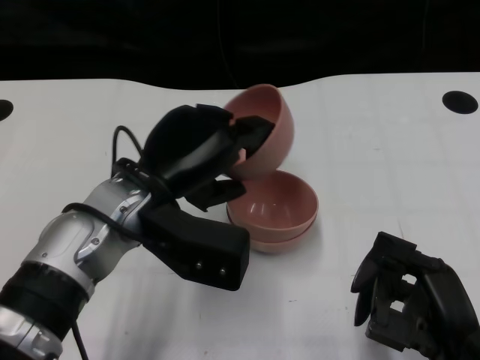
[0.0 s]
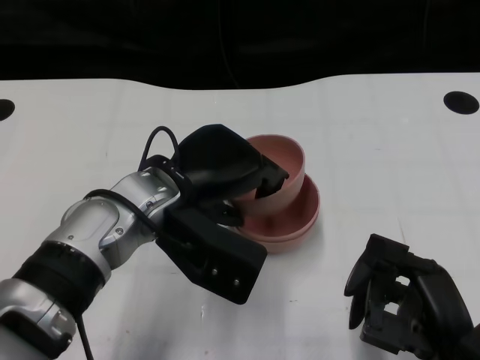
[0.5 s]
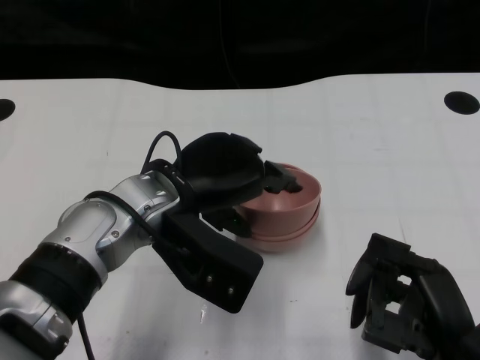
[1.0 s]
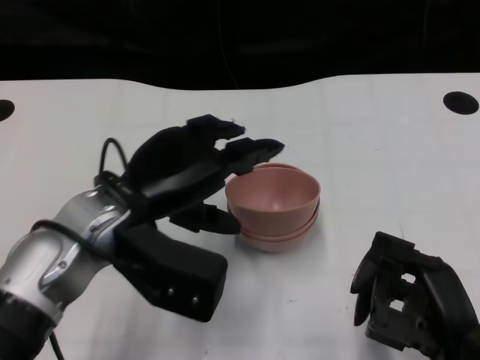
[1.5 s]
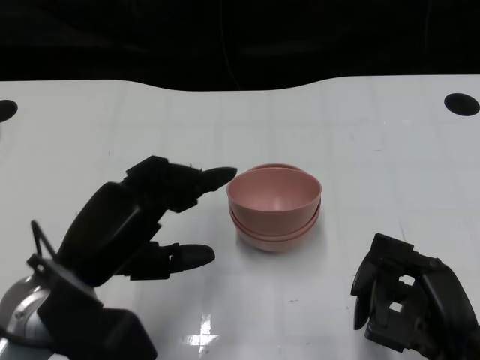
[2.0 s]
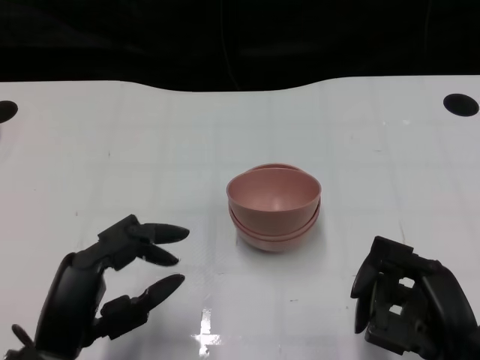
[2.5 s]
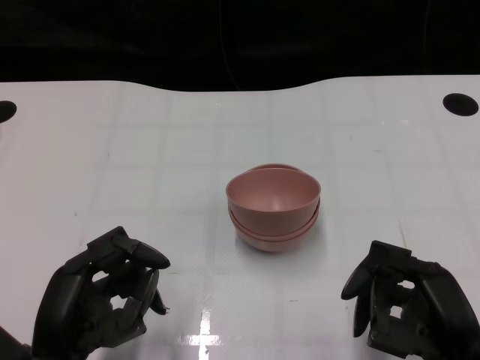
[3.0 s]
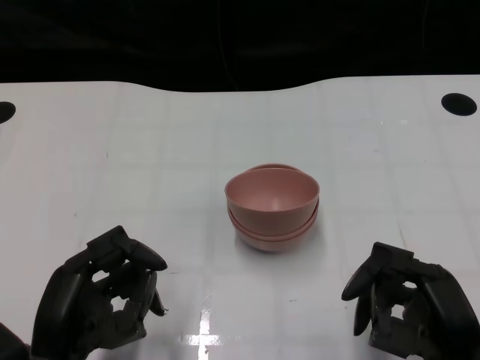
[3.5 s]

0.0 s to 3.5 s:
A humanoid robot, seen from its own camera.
Task of the whole recording: Pick up the bowl on one side of the table and place it on top of the middle bowl, then pick up the bowl on the other side of the table and place it on top of the middle bowls.
Step, 0.0 to 1.5 s: Place the bowl on the left onto the bowl in the middle with left gripper.
0.0 to 2.0 s: The left hand moves to the left and backward, roughly 10 cm.
2.0 to 3.5 s: The left hand heads downward and backward, covering some 10 cm.

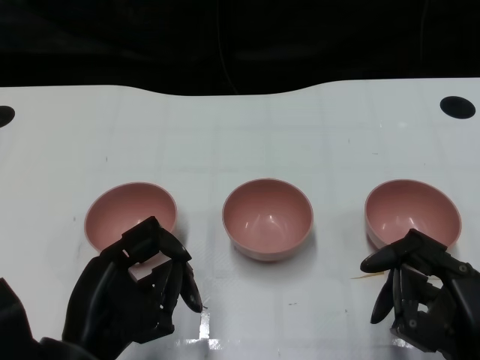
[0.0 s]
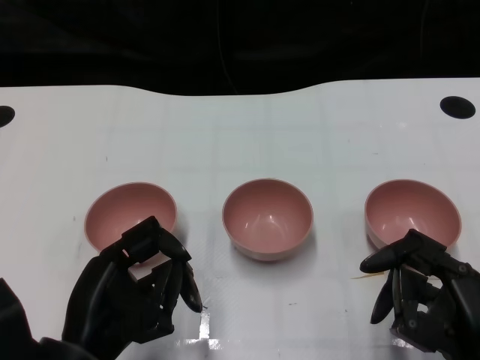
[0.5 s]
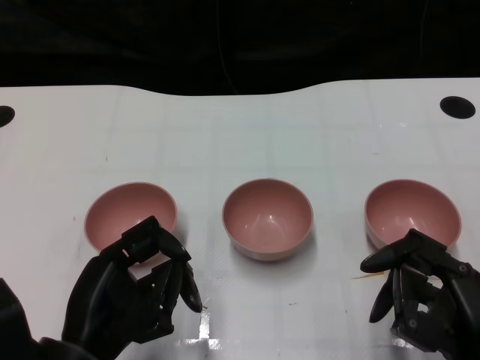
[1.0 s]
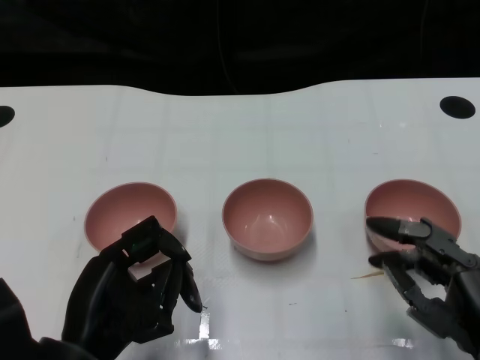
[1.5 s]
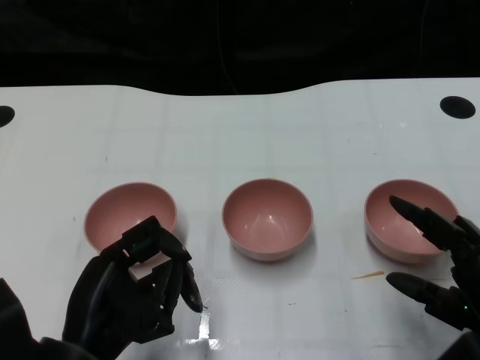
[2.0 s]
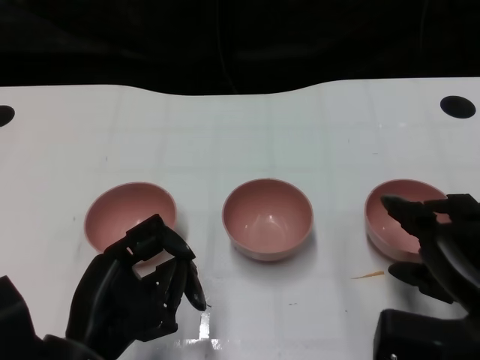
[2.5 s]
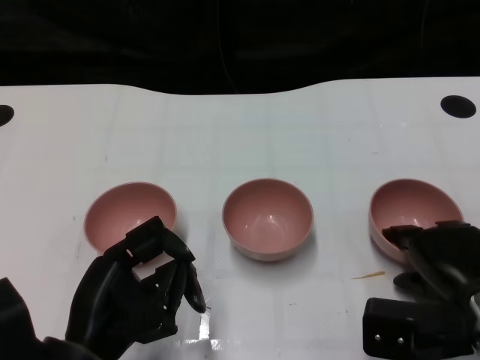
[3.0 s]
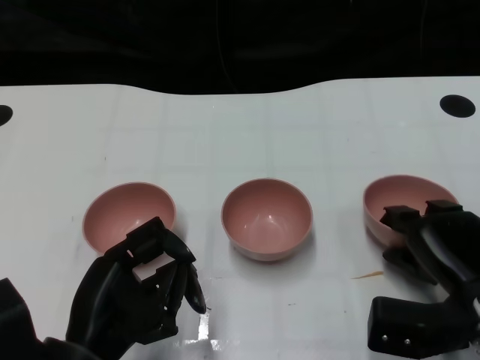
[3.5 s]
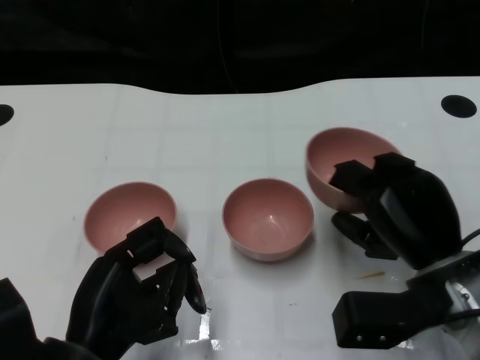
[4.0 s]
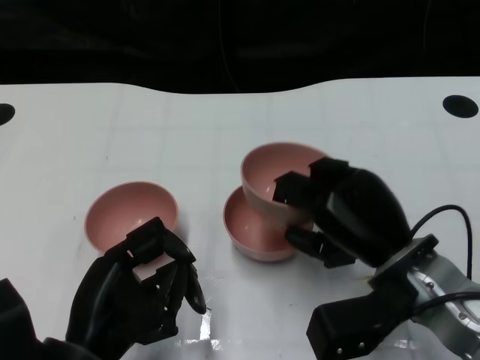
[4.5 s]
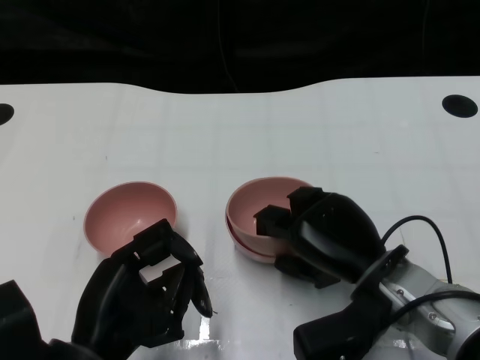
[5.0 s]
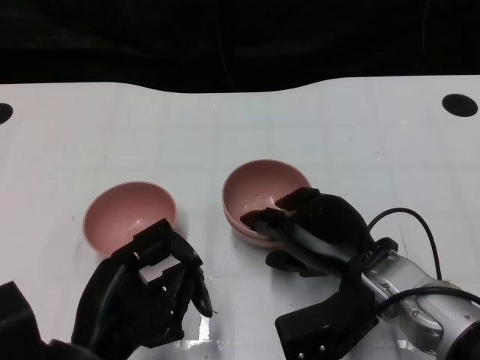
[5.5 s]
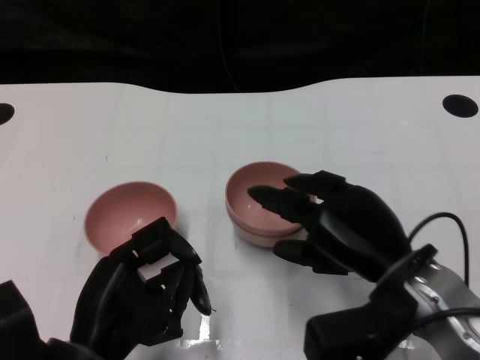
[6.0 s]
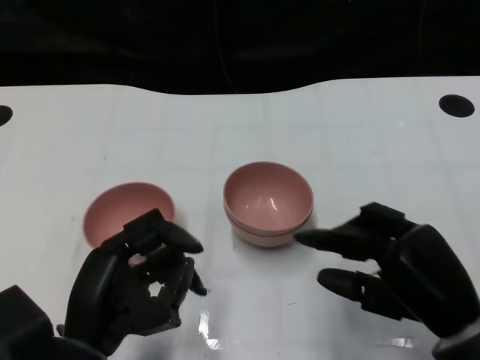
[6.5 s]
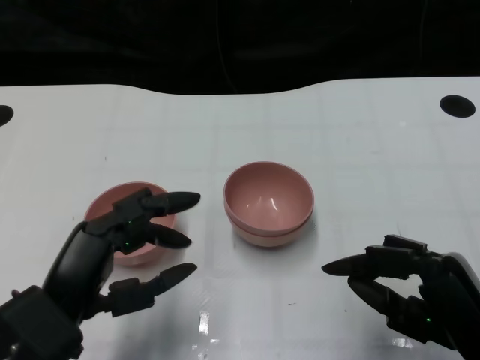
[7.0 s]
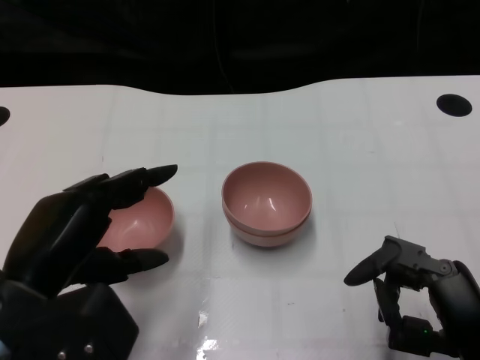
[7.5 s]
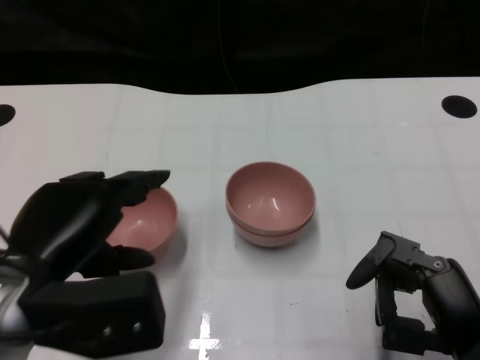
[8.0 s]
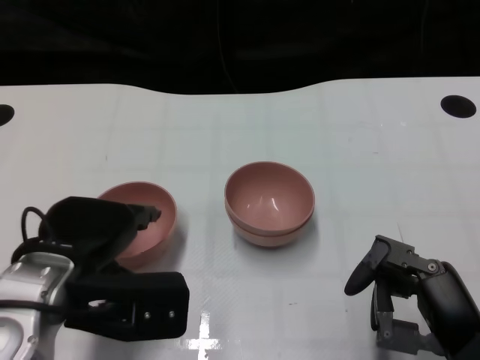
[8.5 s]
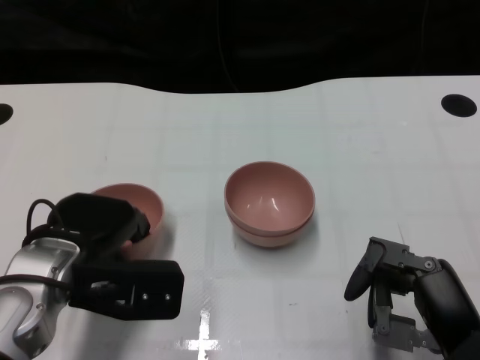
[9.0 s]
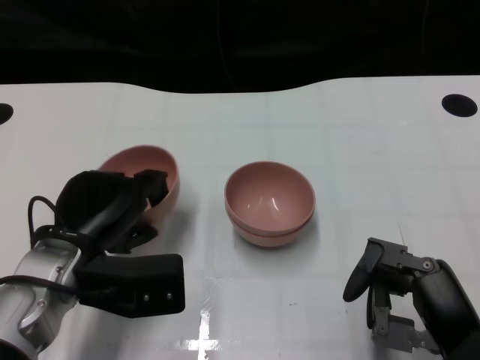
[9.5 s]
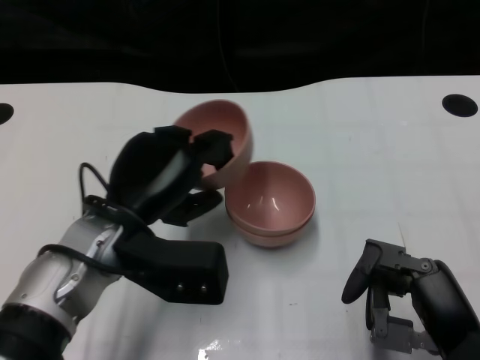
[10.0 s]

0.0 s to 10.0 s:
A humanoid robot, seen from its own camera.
Task of the whole recording: Pick up the bowl on one side of the table and place it on top of the middle bowl, then pick up the bowl on the other side of the table and place it on top of the middle bowls.
Step, 1.5 to 3.0 s: Grasp the bowl on the right with the right gripper.
Step, 4.0 to 6.0 s: Place the bowl on the right onto the bowl in the middle with right gripper.
Step, 6.5 to 9.0 s: Grasp the bowl on the left with the left gripper.
2.0 to 4.0 s: The right hand travels forward and to the left by roughly 10 cm.
6.0 to 8.0 s: The right hand shifts some 10 cm backward and to the right. Meanwhile the left hand travels upward by approximately 10 cm.
8.0 to 10.0 s: The left hand shifts some 10 cm forward and to the right.

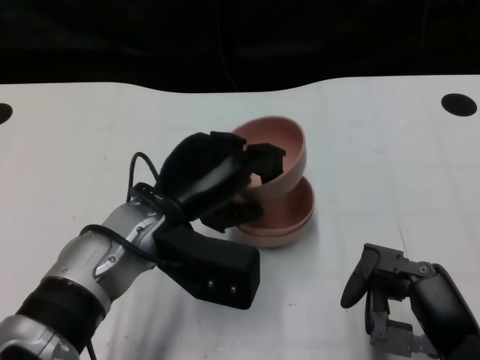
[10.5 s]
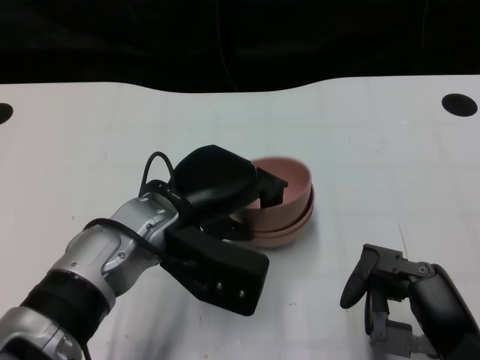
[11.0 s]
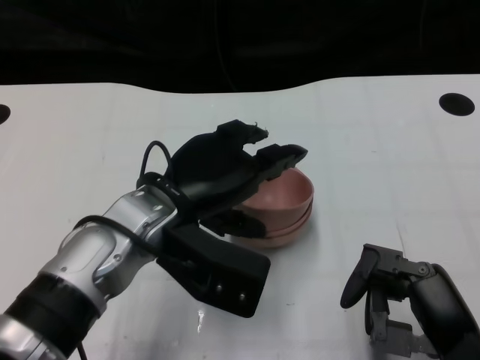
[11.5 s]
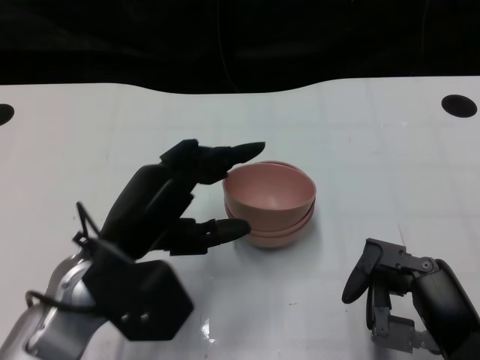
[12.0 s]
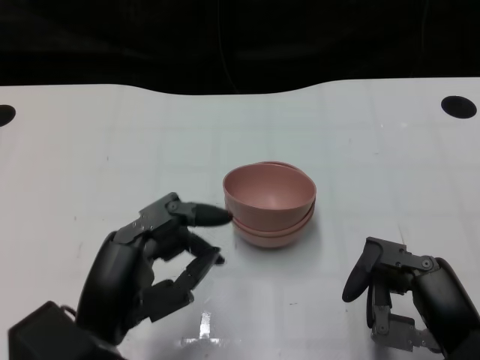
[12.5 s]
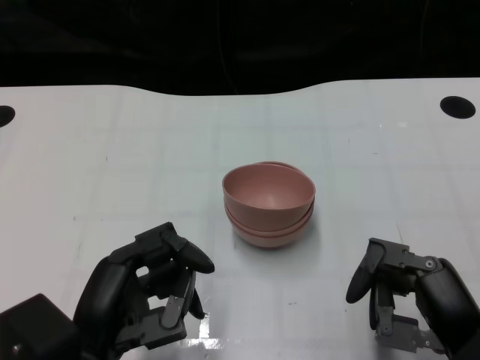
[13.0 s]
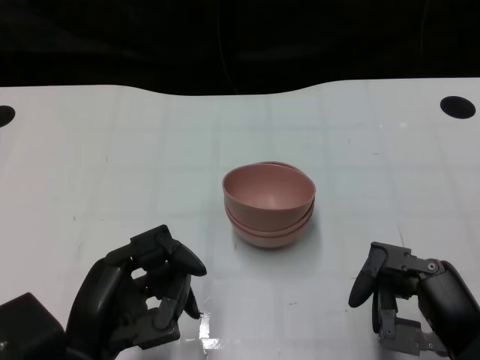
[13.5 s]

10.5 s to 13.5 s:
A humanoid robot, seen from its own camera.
Task of the whole recording: Pick up the bowl on one side of the table and place it on top of the middle bowl, then pick up the bowl on the other side of the table and place it on top of the middle bowls.
10.5 to 12.0 s: The left hand moves roughly 5 cm.
12.0 to 13.5 s: The left hand is displaced backward by approximately 10 cm.

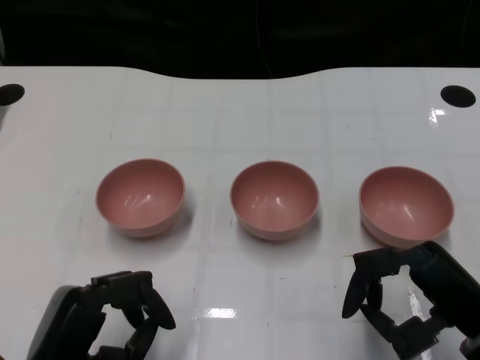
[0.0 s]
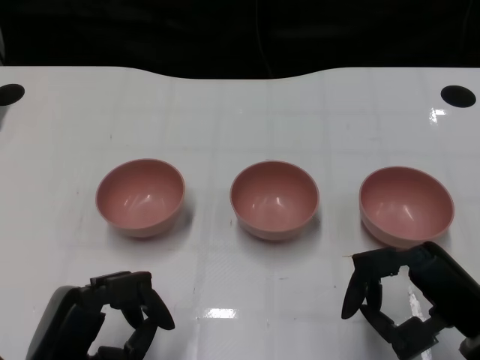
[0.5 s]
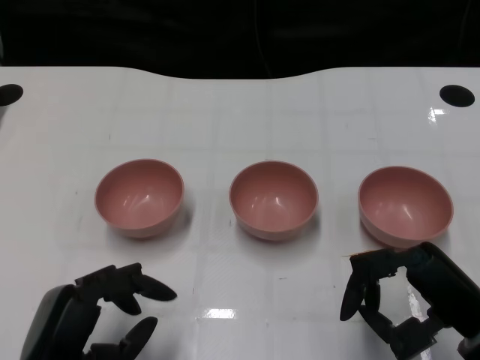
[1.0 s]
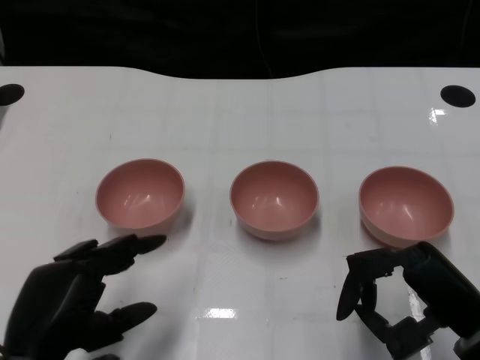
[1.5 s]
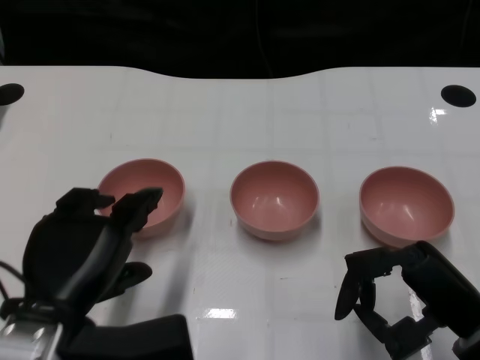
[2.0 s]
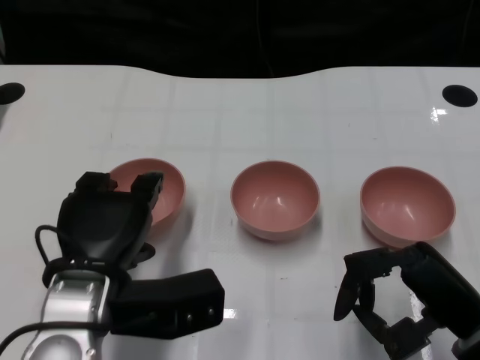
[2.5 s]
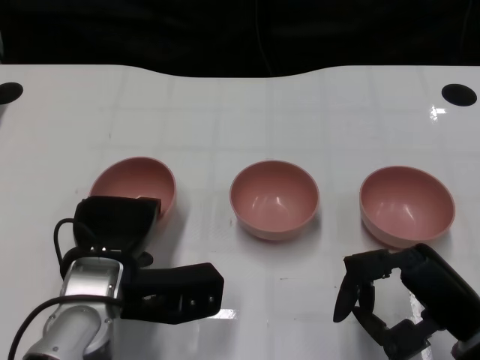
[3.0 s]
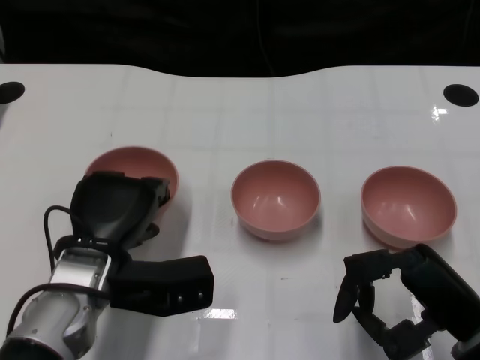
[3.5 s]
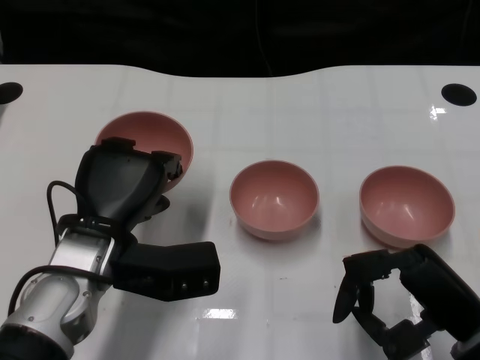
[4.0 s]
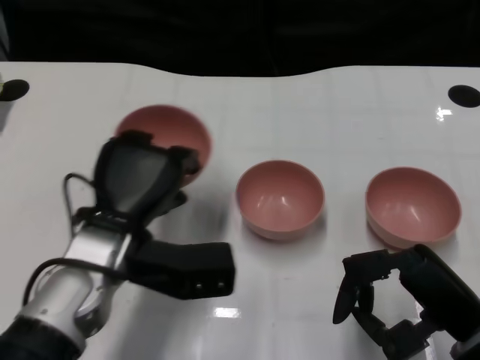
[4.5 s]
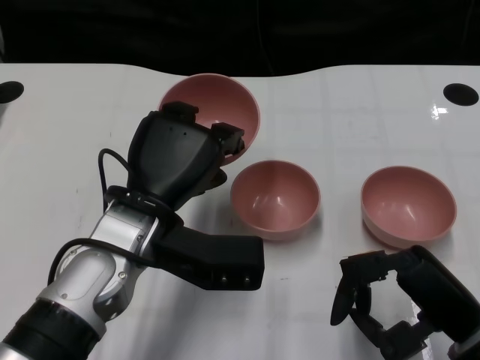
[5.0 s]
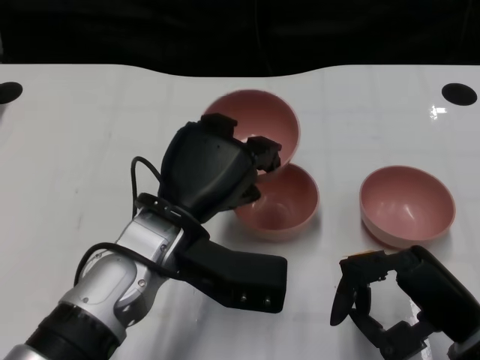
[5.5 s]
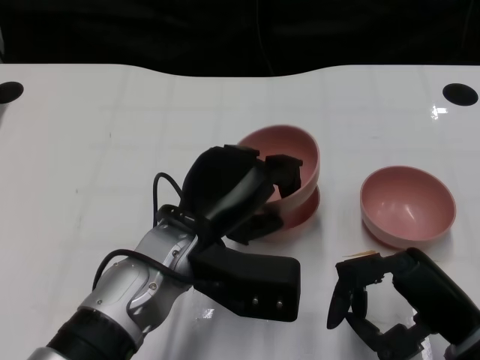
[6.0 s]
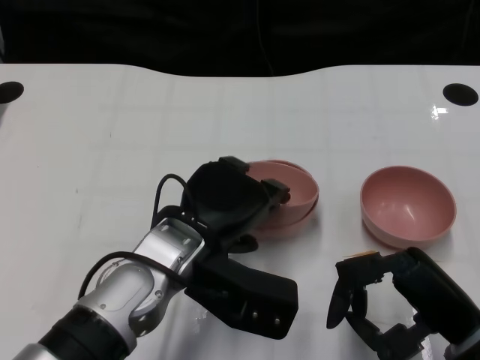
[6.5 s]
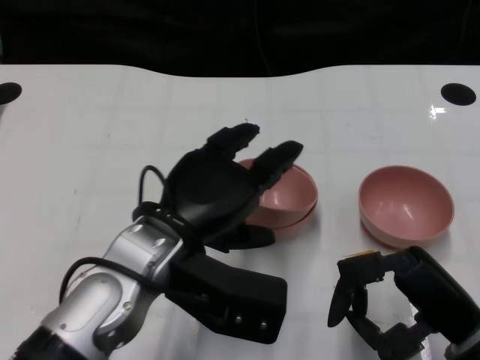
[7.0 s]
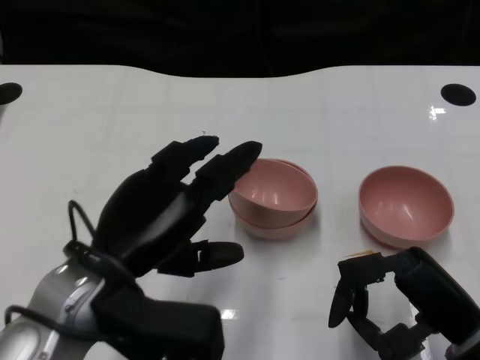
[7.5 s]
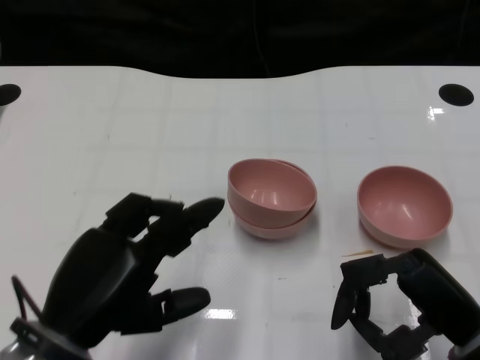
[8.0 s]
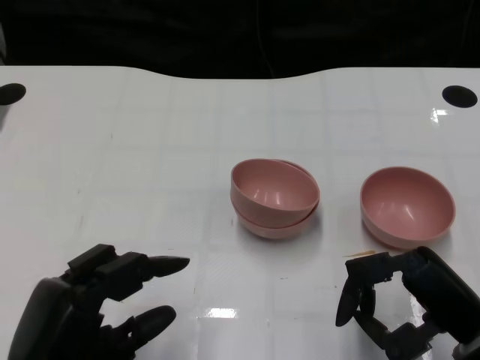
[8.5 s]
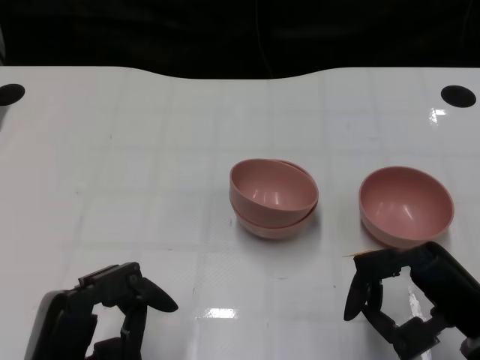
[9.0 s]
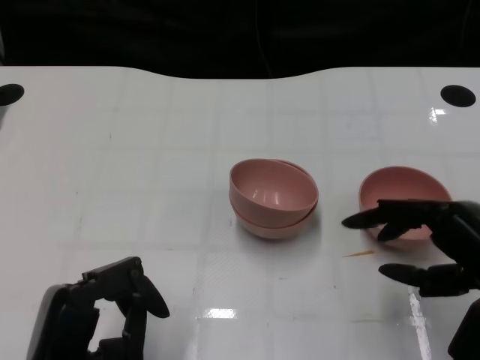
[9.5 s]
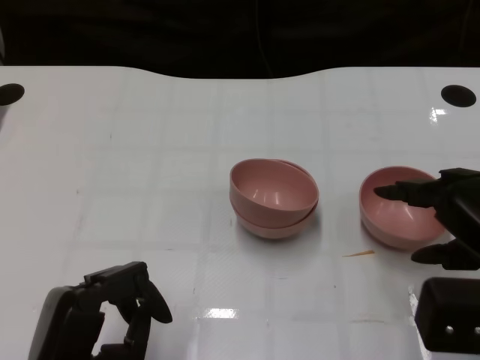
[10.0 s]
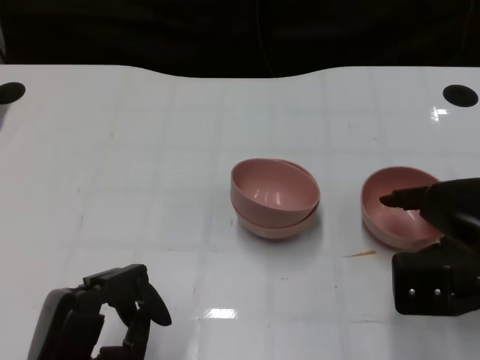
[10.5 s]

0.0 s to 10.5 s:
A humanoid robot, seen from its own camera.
Task of the whole recording: Pick up the bowl on one side of the table and place it on top of the middle bowl, then pick up the bowl on the other side of the table and place it on top of the middle bowls.
Step, 1.0 to 3.0 s: Grasp the bowl on the left with the left gripper.
Step, 3.5 to 6.5 s: Place the bowl on the left onto the bowl in the middle with left gripper.
2.0 to 4.0 s: The left hand is displaced forward by about 10 cm.
4.0 to 6.5 s: The left hand shifts about 10 cm to the right.
6.5 to 8.5 s: The left hand travels backward and to the left by about 20 cm.
8.5 to 10.5 s: The right hand shifts about 5 cm forward.
